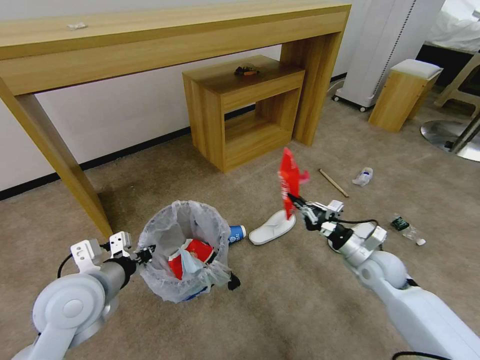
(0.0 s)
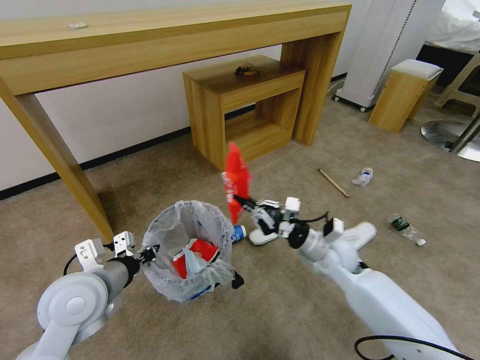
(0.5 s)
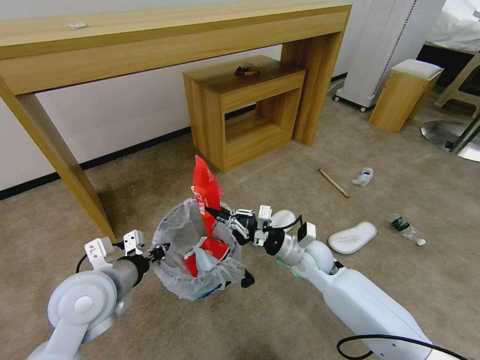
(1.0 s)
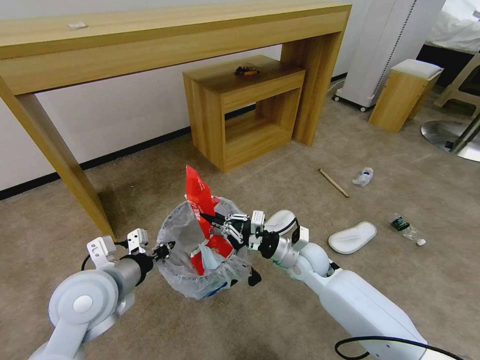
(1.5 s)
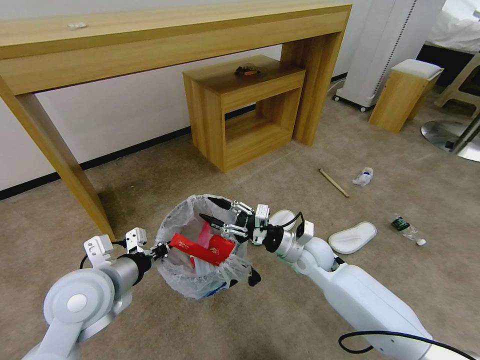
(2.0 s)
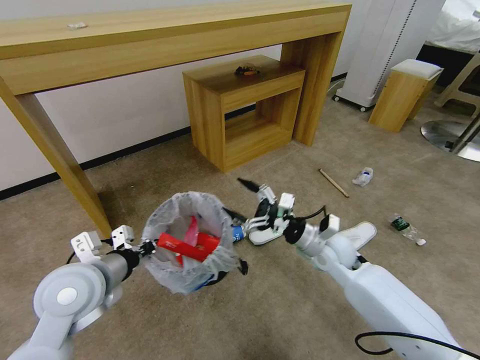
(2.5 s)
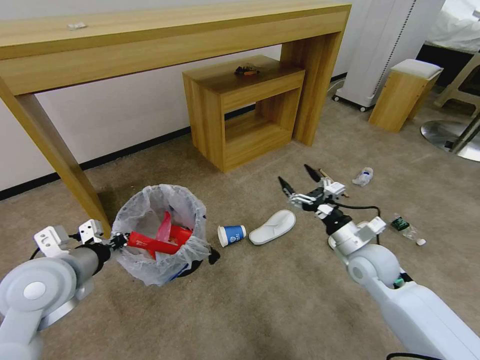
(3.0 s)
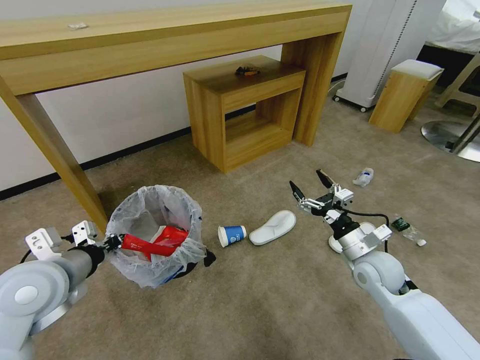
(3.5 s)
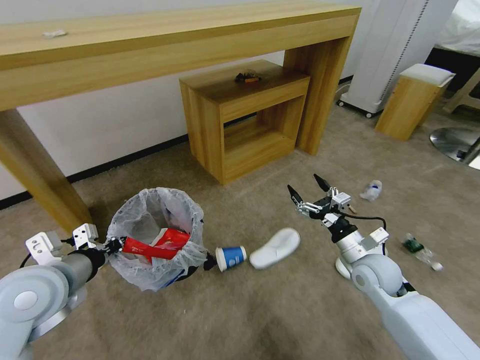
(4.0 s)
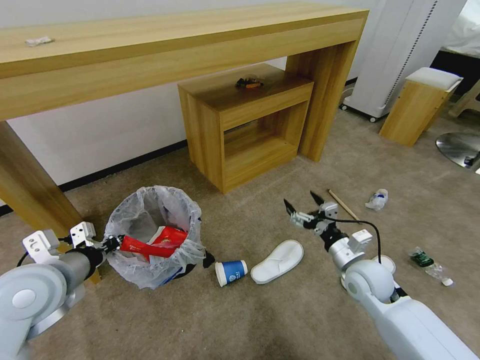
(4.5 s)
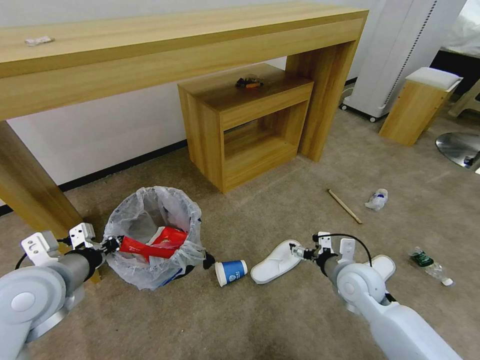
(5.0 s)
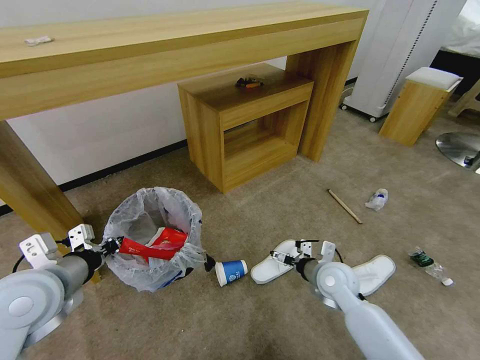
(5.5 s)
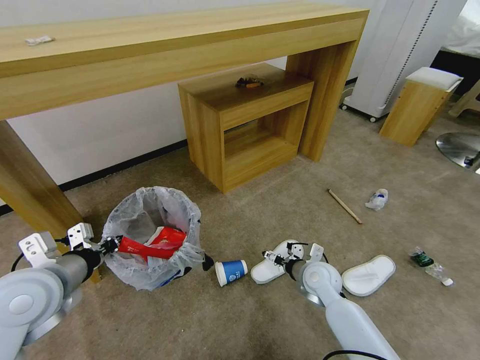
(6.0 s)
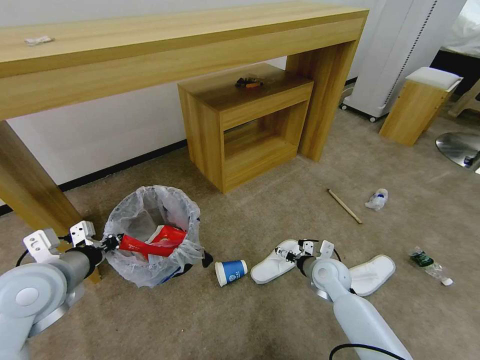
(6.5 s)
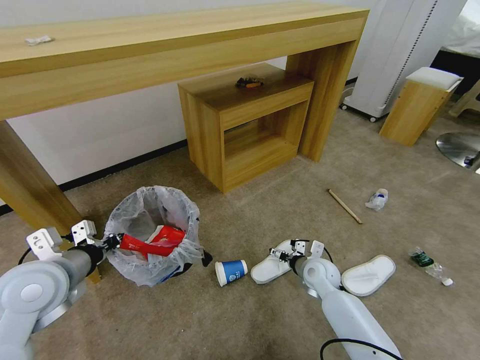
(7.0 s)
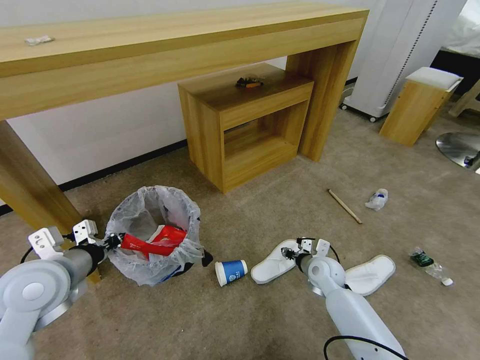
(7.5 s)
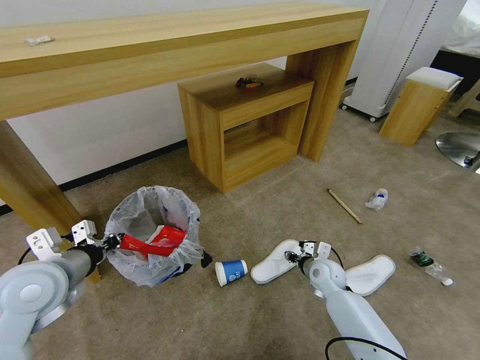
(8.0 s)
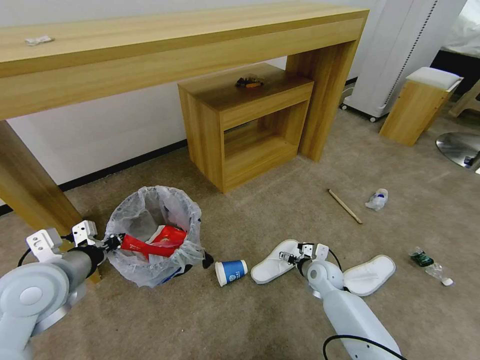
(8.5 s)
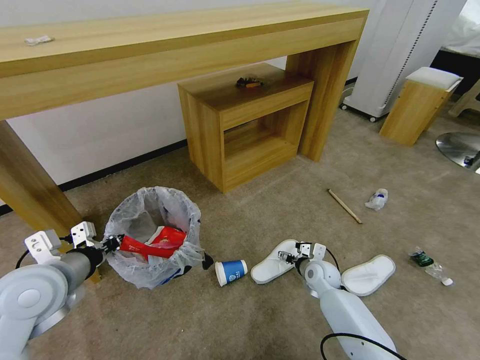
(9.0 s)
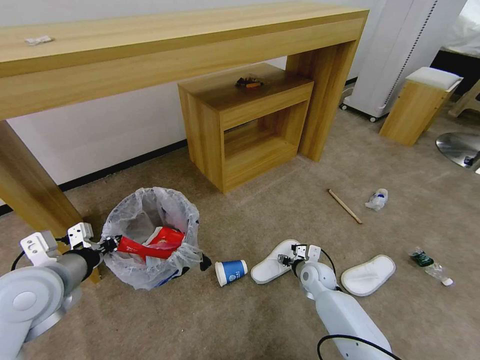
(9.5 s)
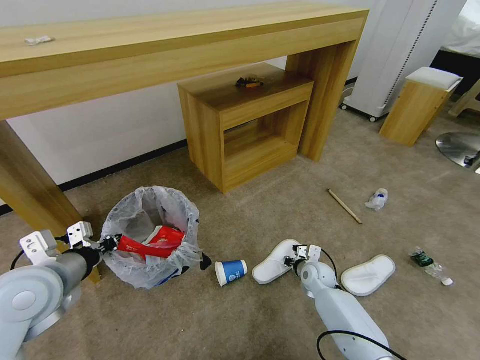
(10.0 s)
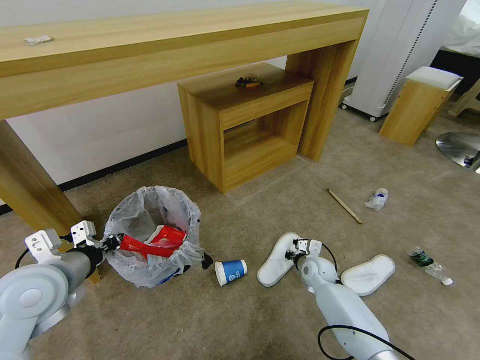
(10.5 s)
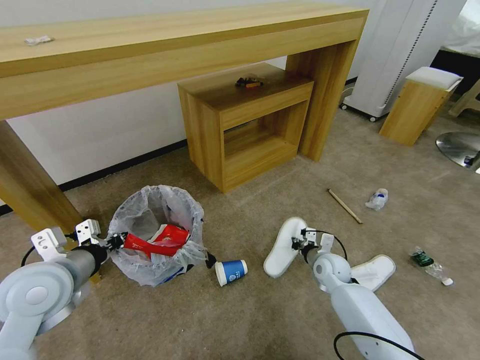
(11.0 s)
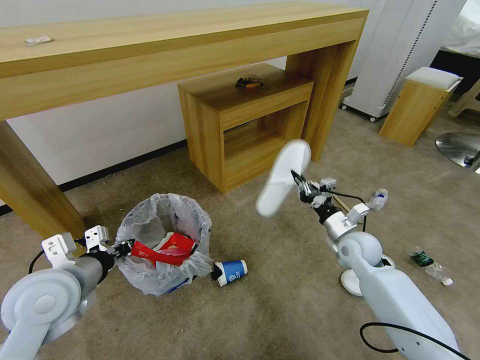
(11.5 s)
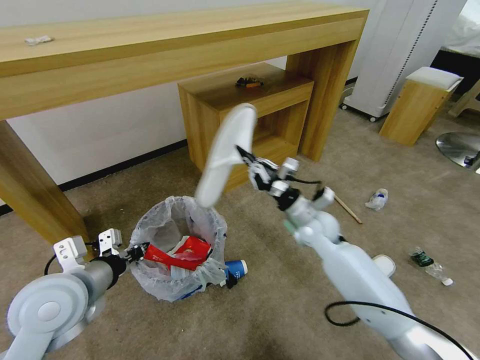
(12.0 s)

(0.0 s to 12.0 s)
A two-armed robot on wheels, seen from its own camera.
Task of the whole recording: Pick up the trash bin and place the garbage on the floor into it.
0.0 s - 2.0 s: The right gripper shifts some 15 cm to the left, and opens its fingers.
2.0 s - 4.0 s: The right gripper is displaced to the right by about 15 cm, and opens its fingers. The left gripper travels to the left by about 5 cm.
4.0 s - 6.0 s: The right gripper moves to the left and downward, roughly 10 cm.
6.0 s - 8.0 s: The right gripper shifts by roughly 5 cm, and closes its fingers.
8.0 s - 10.0 s: The right gripper opens, then closes again.
10.0 s - 12.0 s: The right gripper heads upward, covering about 20 cm.

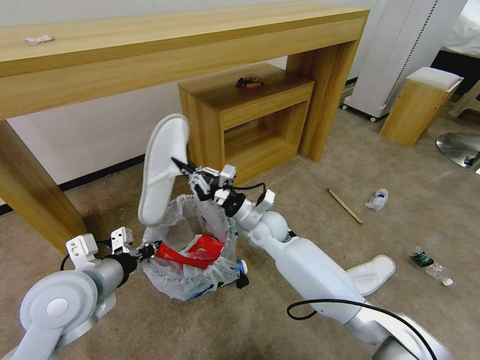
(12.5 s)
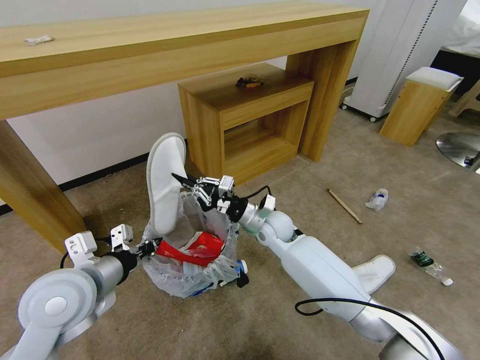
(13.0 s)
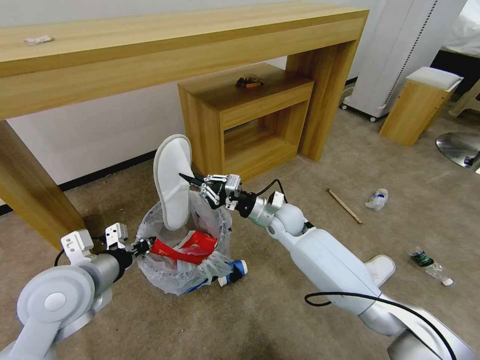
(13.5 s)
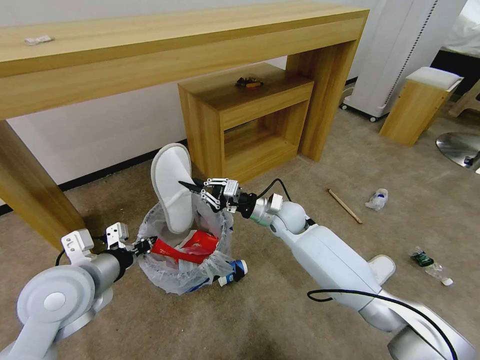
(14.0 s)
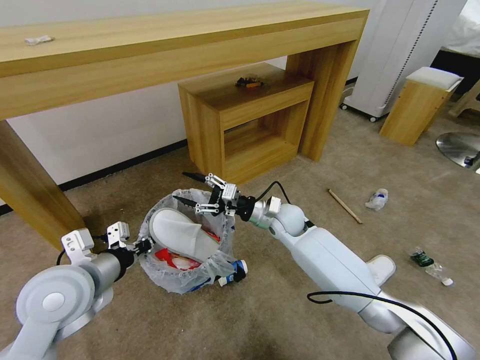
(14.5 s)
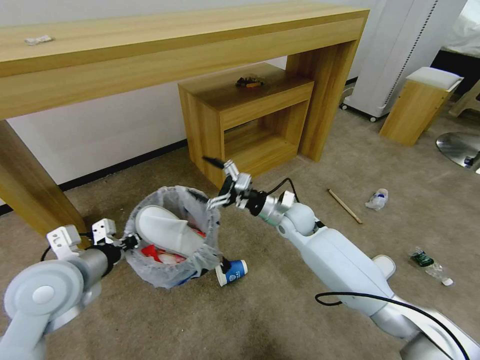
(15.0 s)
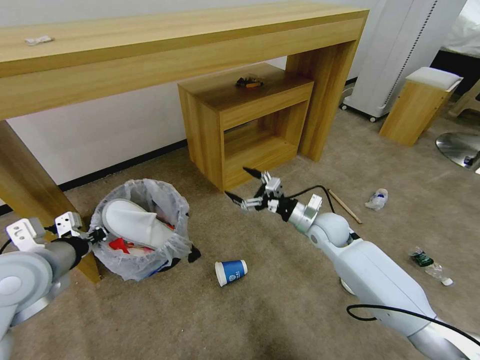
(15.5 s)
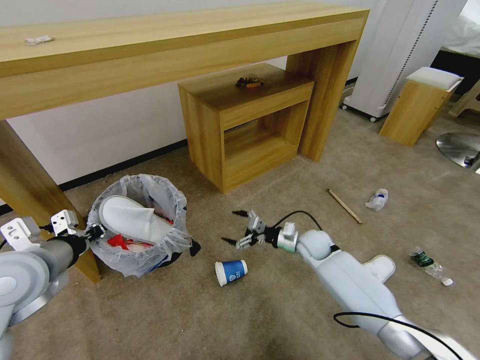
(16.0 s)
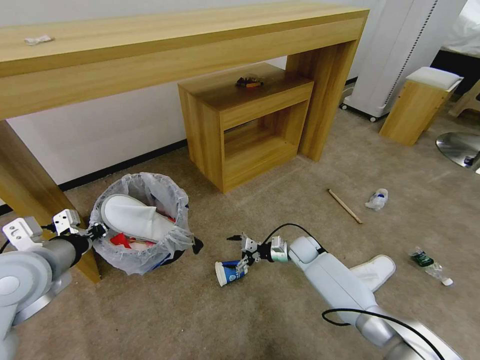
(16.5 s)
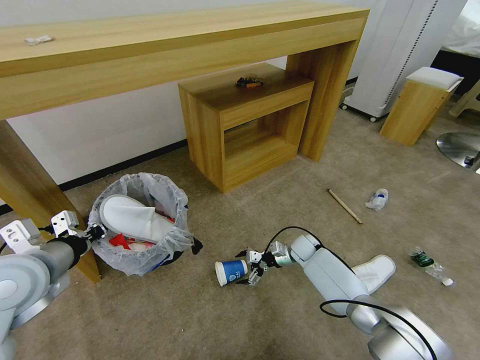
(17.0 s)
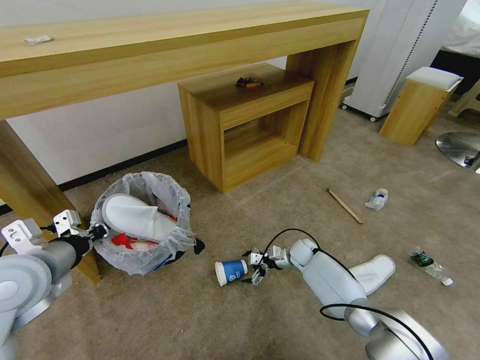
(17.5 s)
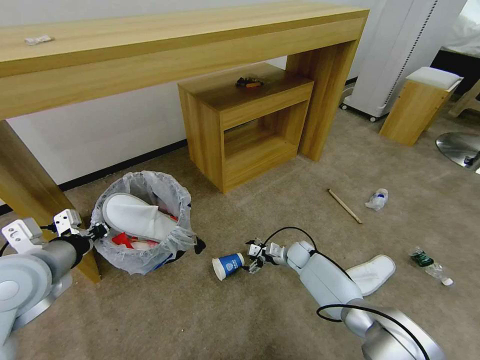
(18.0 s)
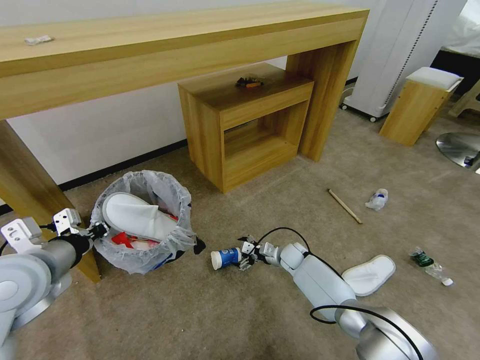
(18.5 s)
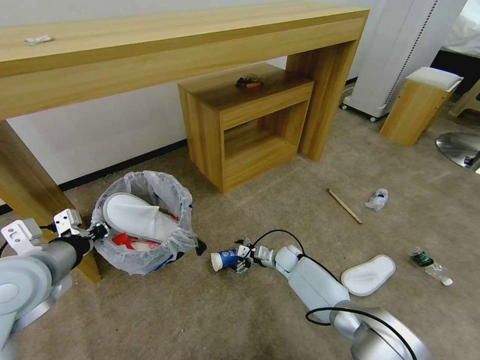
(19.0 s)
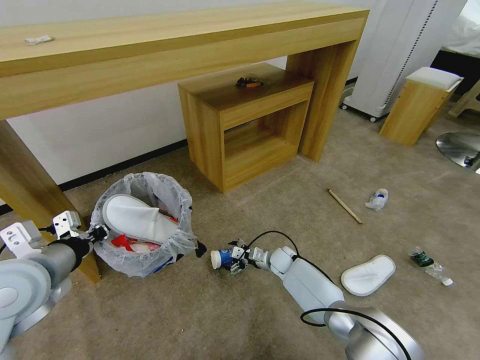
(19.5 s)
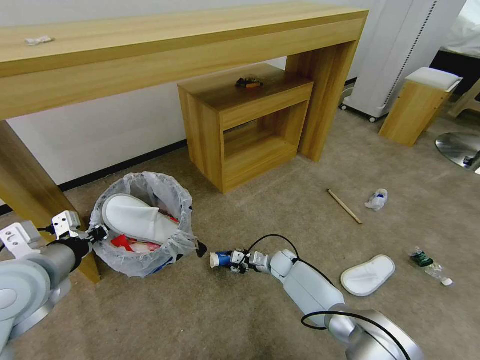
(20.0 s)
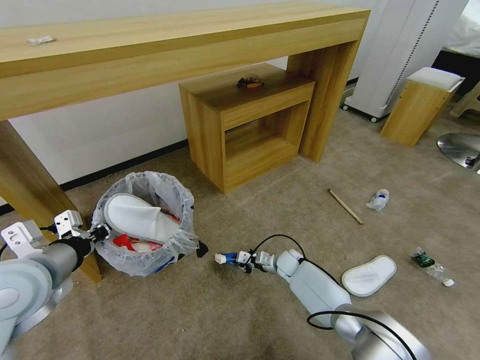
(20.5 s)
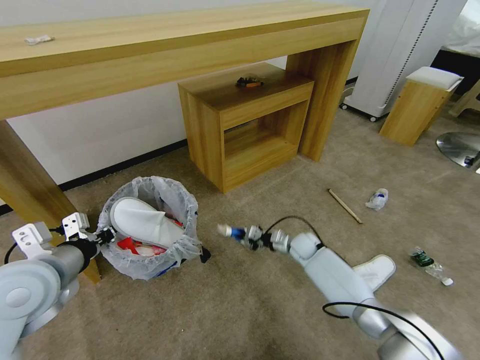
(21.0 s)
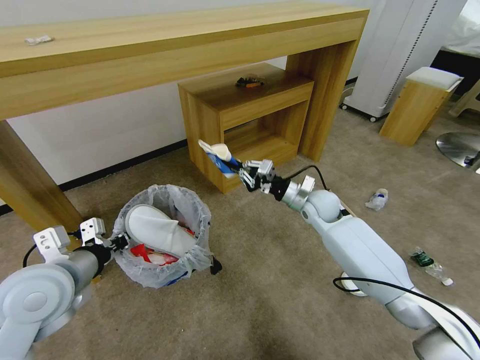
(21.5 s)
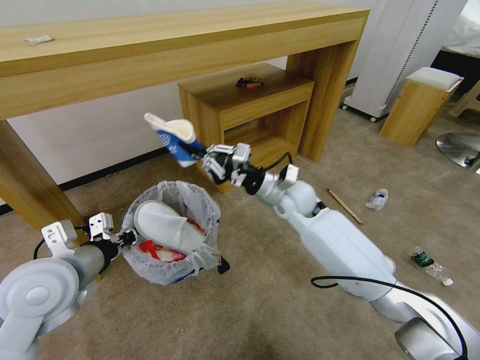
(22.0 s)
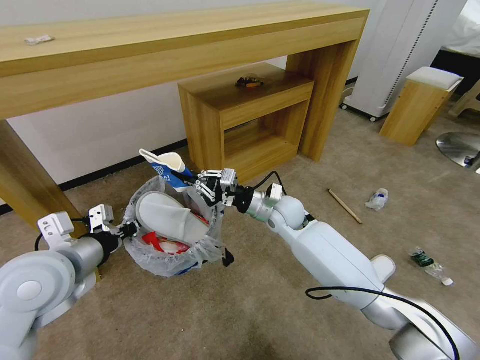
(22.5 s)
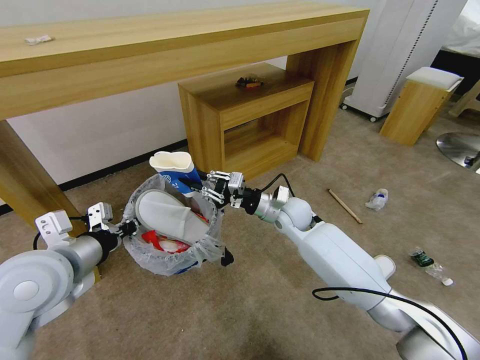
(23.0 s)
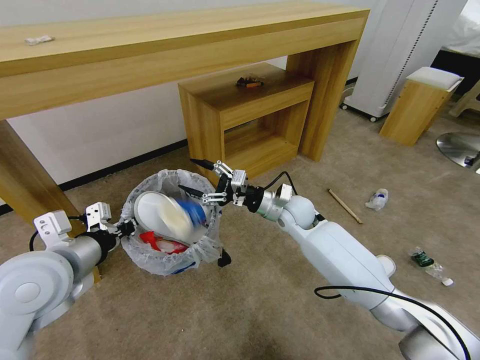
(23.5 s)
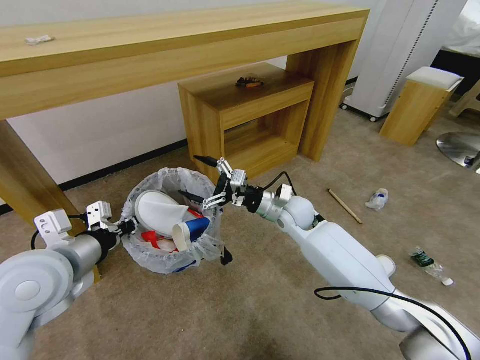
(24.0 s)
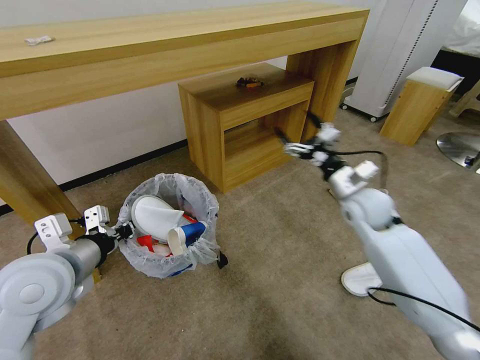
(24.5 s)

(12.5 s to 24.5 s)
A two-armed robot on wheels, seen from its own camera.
Task of the whole recording: Pick up the trash bin and place the garbage on the floor into it.
12.5 s - 14.5 s: The right gripper shifts by roughly 5 cm, and opens up.
14.5 s - 16.5 s: The left gripper moves to the left, some 5 cm. Meanwhile the right gripper travels downward and to the right by roughly 20 cm.
16.5 s - 18.5 s: The right gripper changes place by approximately 5 cm.
18.5 s - 20.5 s: The right gripper closes its fingers.
20.5 s - 22.5 s: The right gripper goes some 25 cm upward.
22.5 s - 24.5 s: The right gripper moves to the right, approximately 15 cm, and opens its fingers.

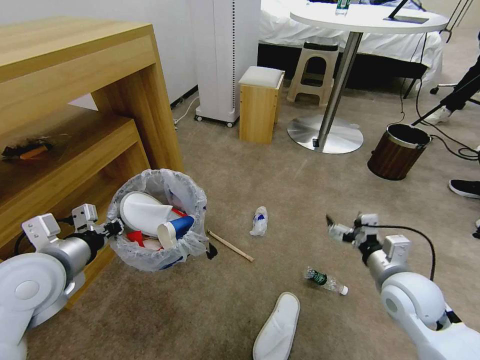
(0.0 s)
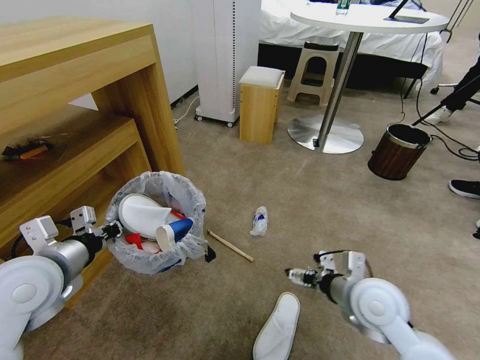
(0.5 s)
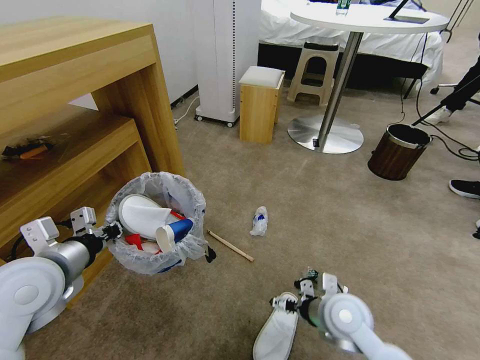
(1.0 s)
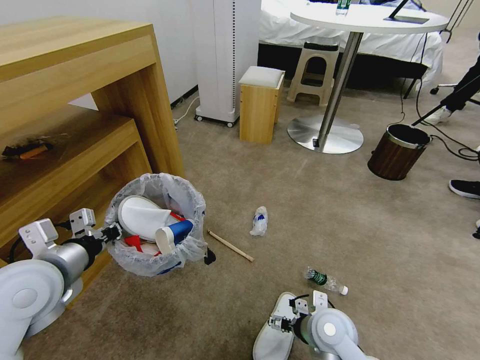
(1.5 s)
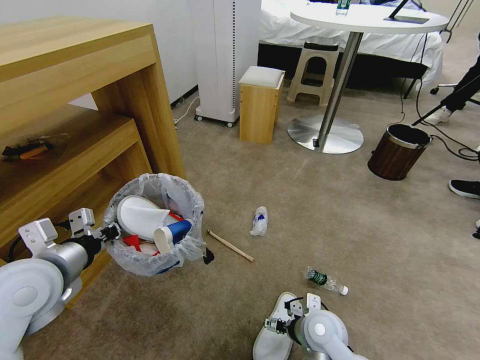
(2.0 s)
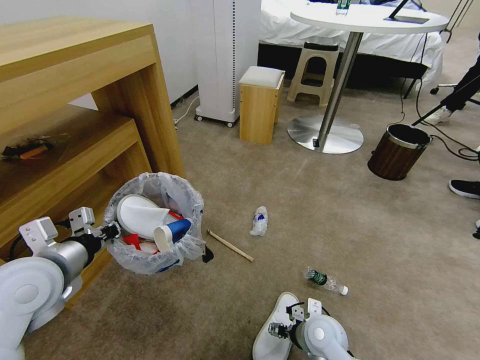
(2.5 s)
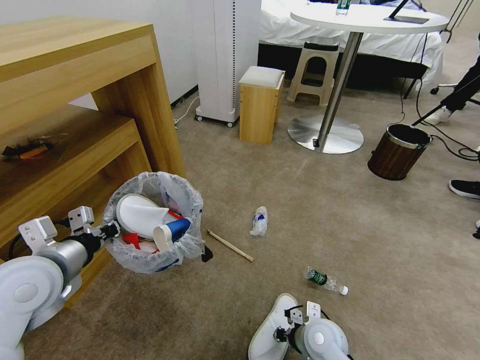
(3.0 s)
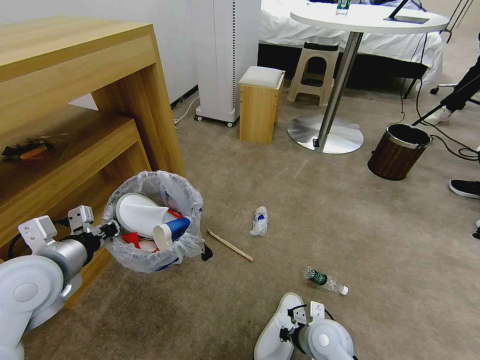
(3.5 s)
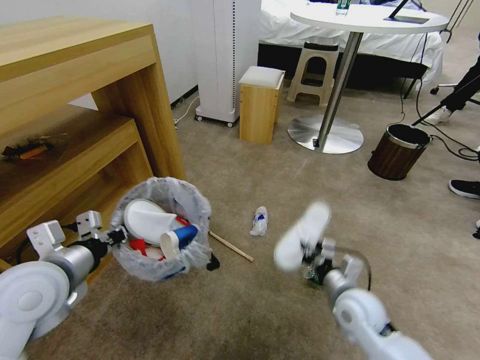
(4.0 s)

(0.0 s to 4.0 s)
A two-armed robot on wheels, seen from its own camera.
Task of the whole recording: Pick up the trash bin and place the garbage on the floor into it.
0.0 s - 2.0 s: The right gripper is displaced downward and to the left by approximately 20 cm.
2.0 s - 4.0 s: The right gripper is displaced to the right and upward by about 10 cm, and closes its fingers.
